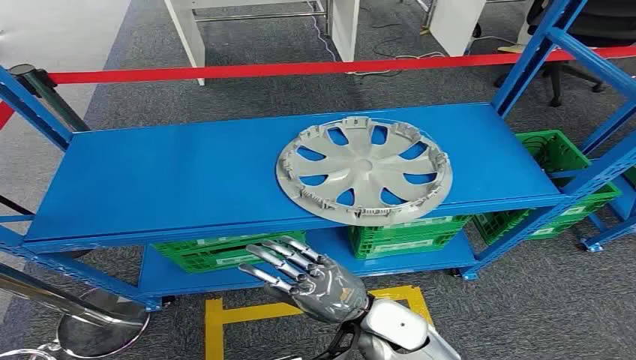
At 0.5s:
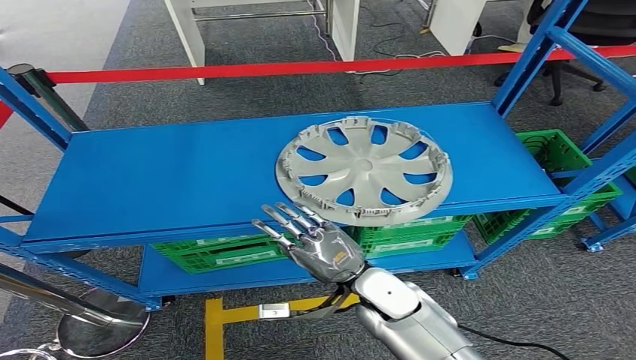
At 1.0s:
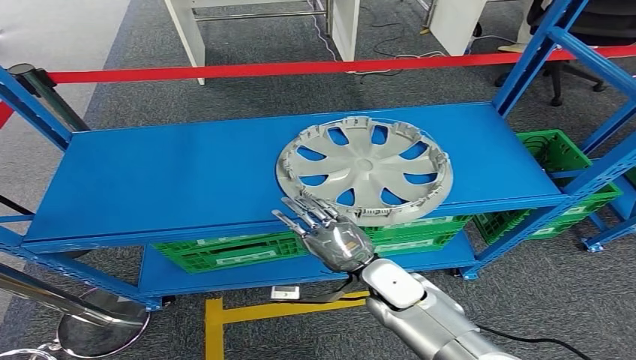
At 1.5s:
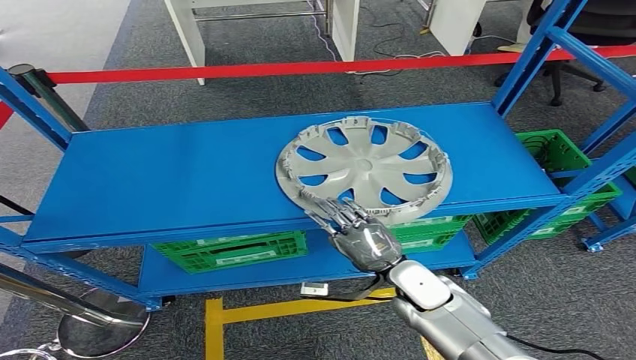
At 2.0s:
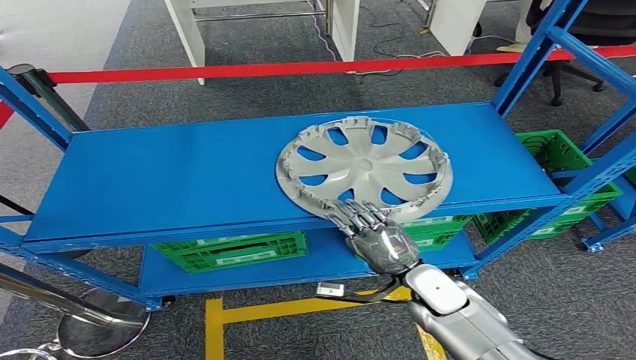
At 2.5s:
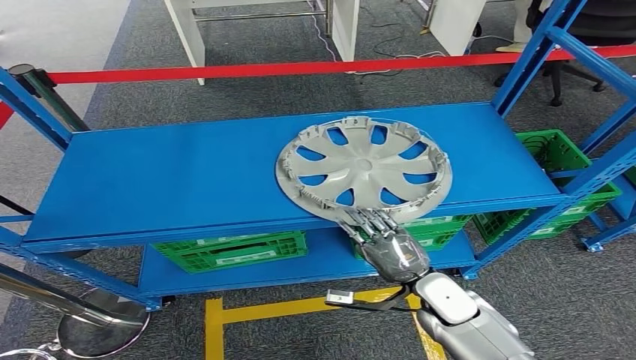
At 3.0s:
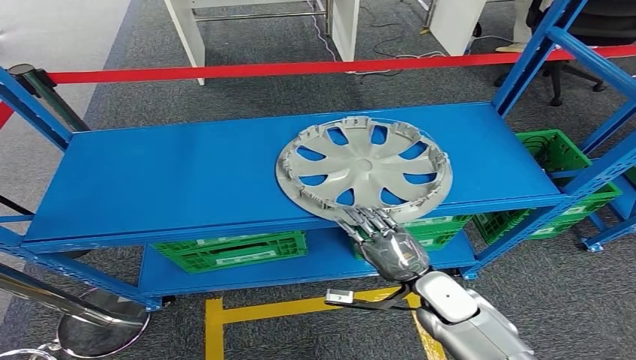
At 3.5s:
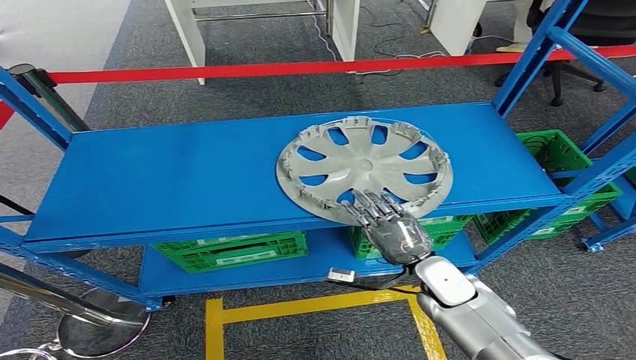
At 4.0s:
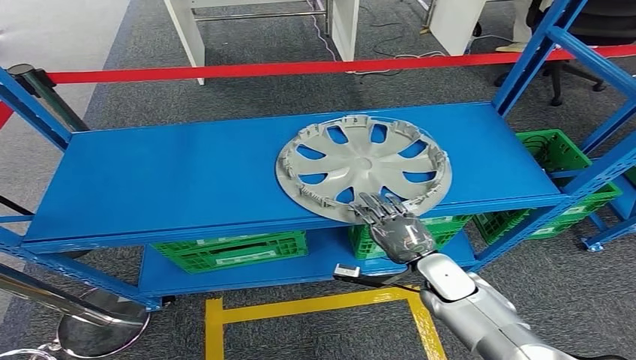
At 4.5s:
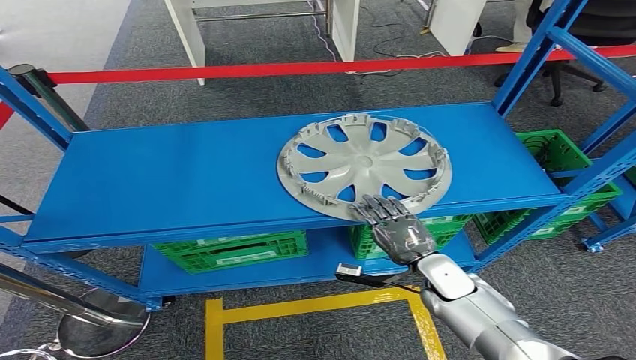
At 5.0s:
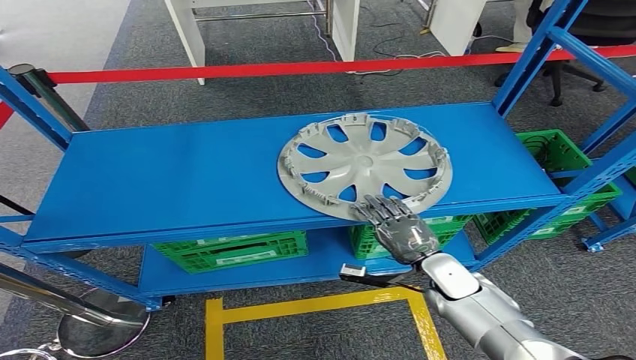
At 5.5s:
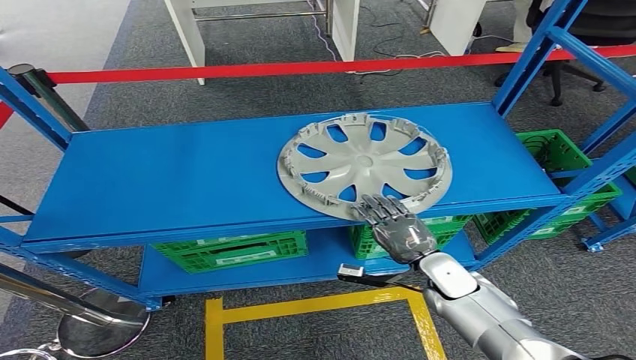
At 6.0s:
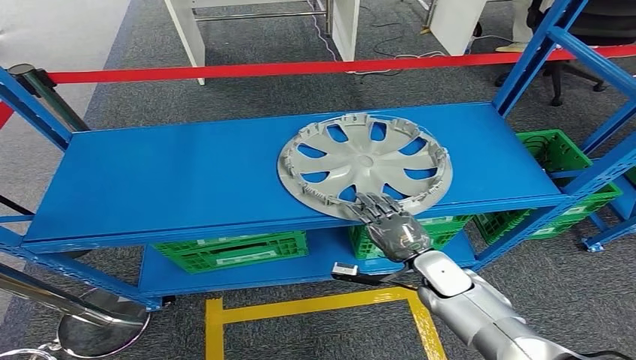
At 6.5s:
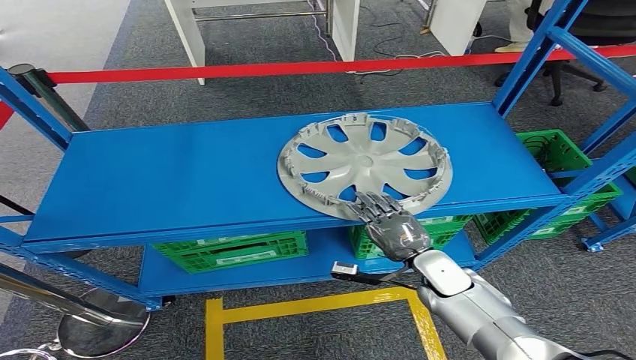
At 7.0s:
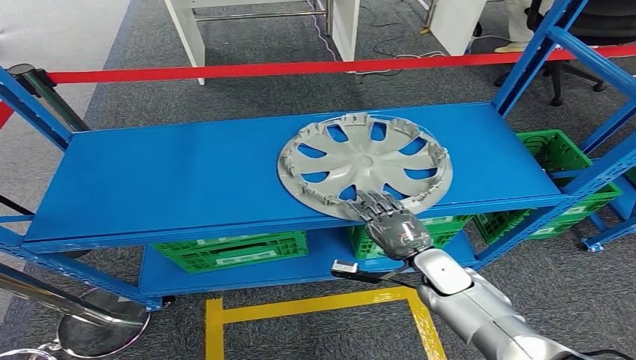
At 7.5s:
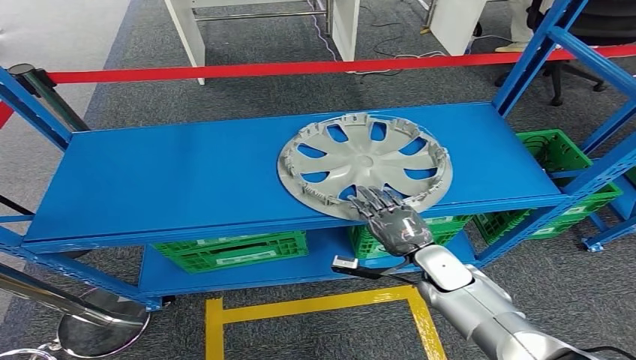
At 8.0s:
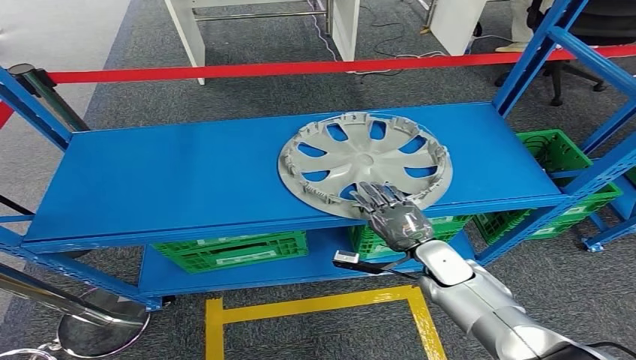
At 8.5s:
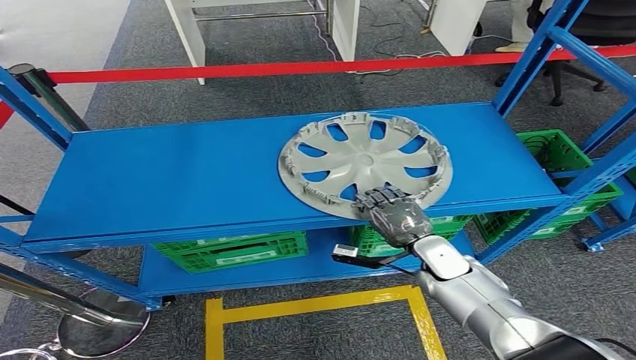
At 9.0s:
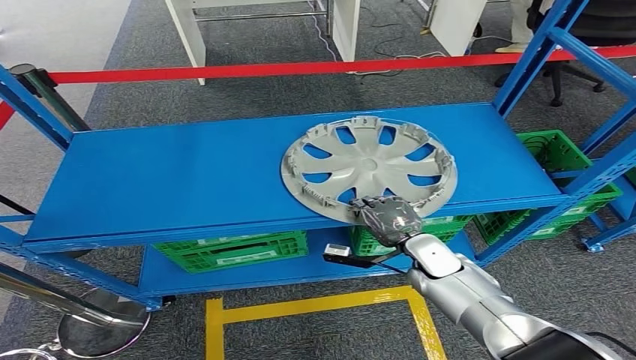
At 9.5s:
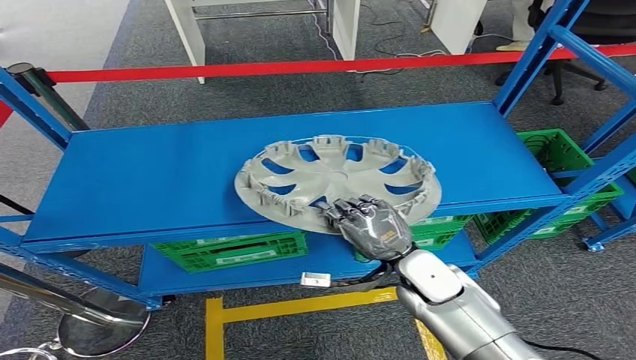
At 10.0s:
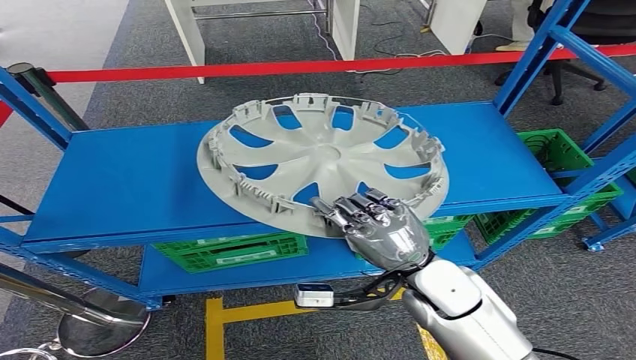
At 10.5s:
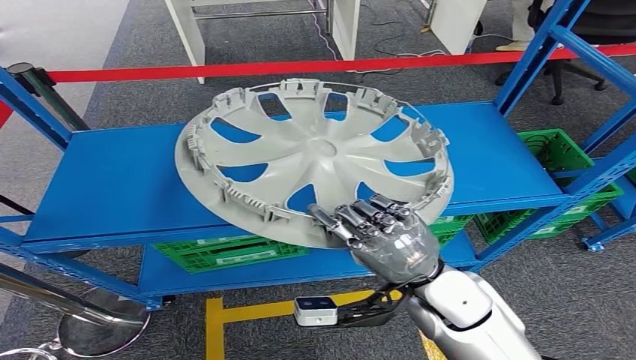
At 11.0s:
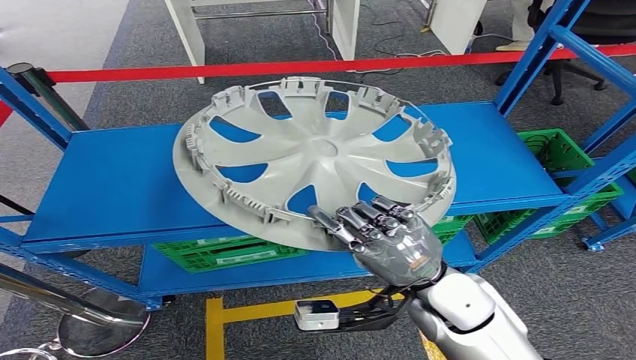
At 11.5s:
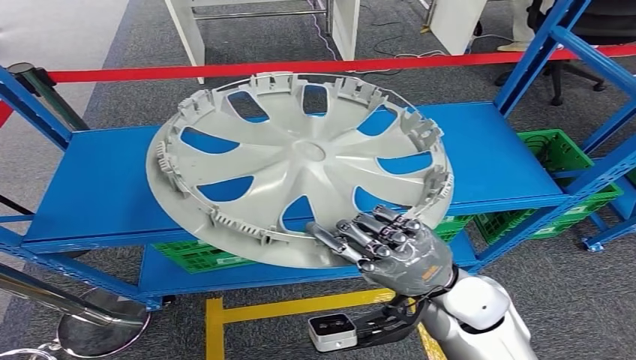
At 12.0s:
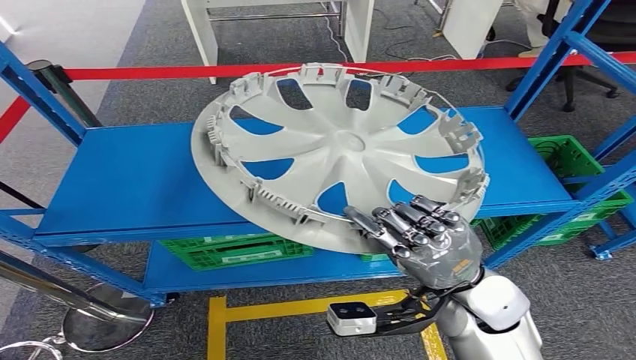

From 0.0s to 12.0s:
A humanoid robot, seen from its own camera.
From 2.0s to 8.0s: The hands stay close to where they were, moving slightly.
From 8.0s to 10.0s: The right hand goes some 15 cm upward, backward and to the left.

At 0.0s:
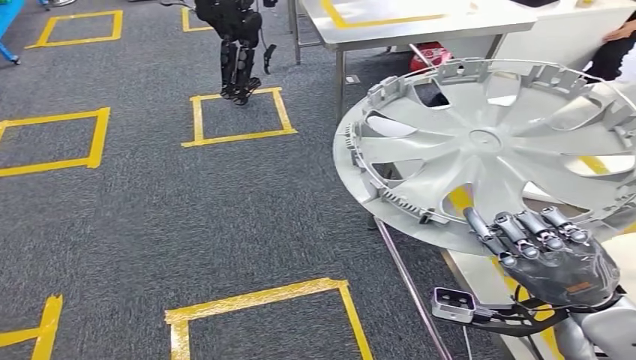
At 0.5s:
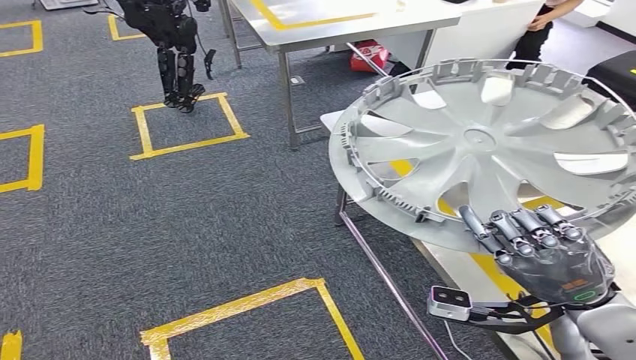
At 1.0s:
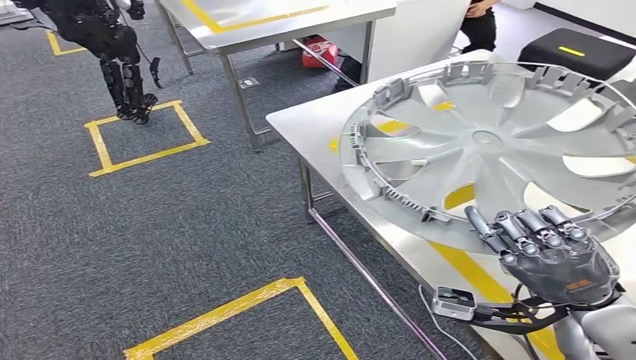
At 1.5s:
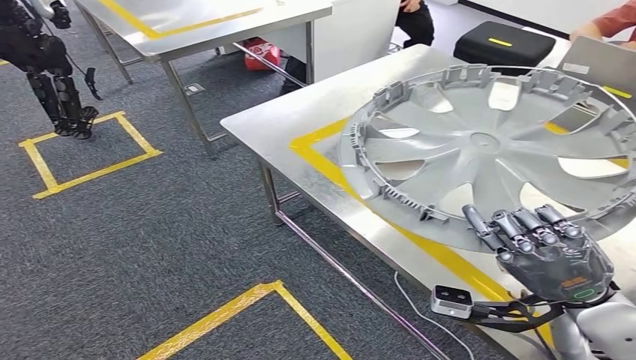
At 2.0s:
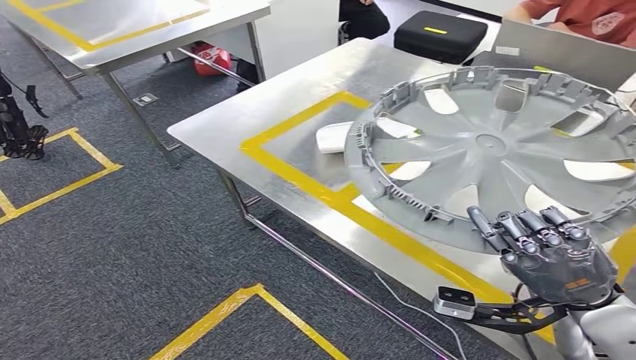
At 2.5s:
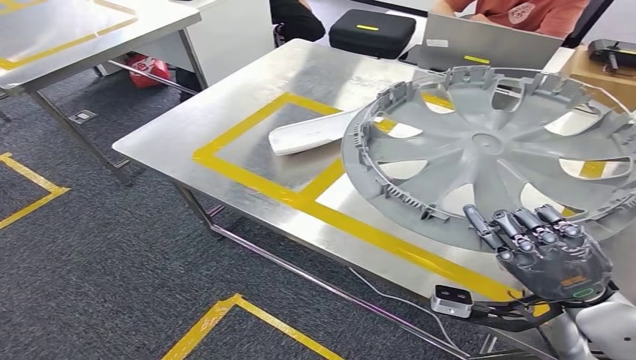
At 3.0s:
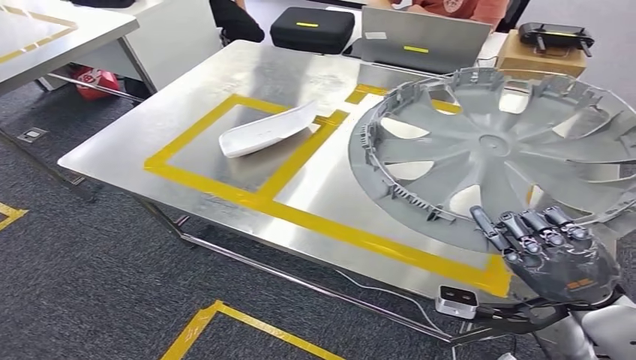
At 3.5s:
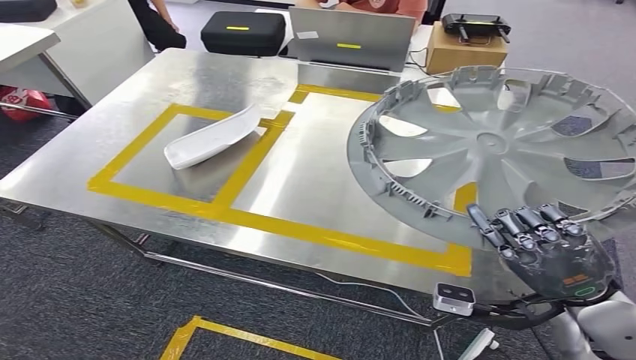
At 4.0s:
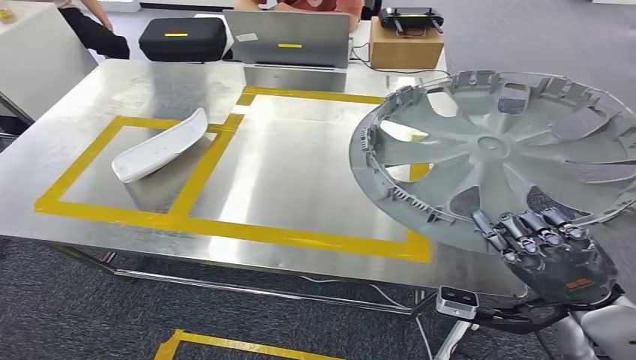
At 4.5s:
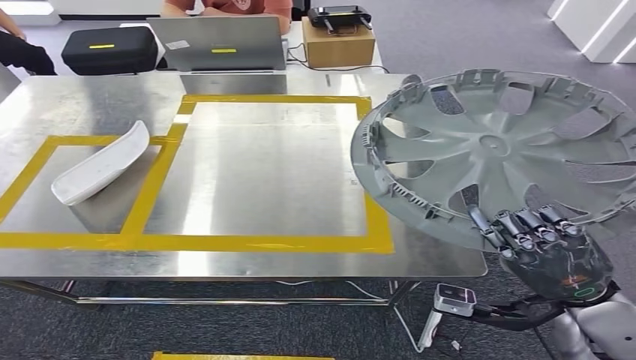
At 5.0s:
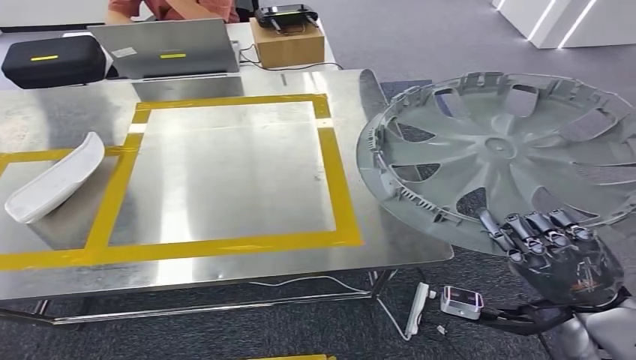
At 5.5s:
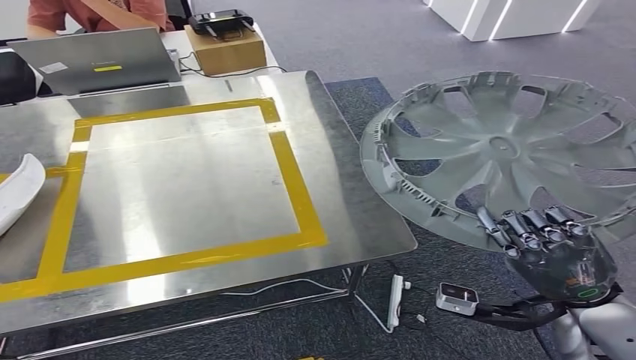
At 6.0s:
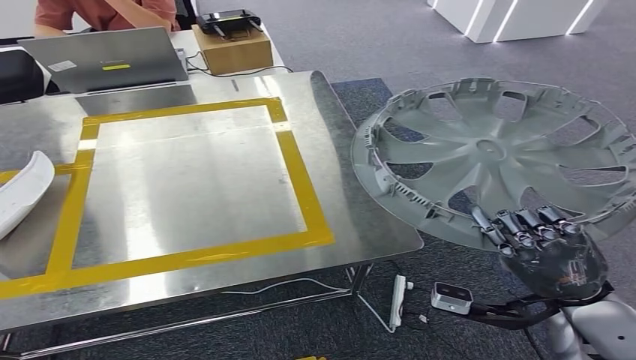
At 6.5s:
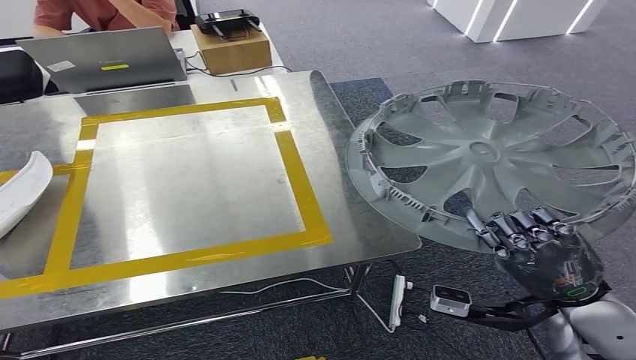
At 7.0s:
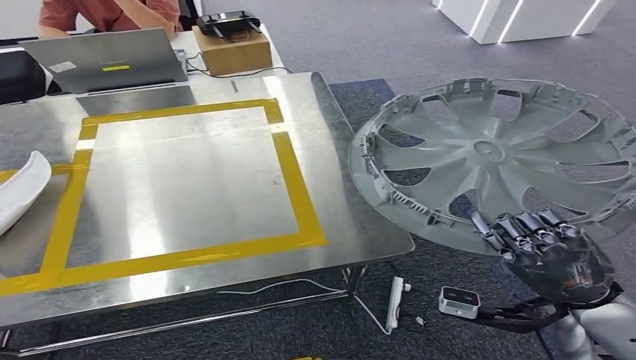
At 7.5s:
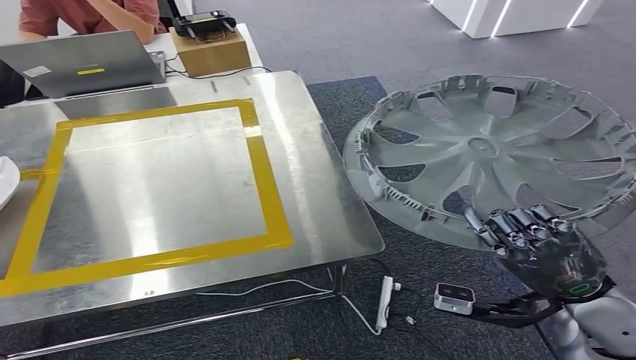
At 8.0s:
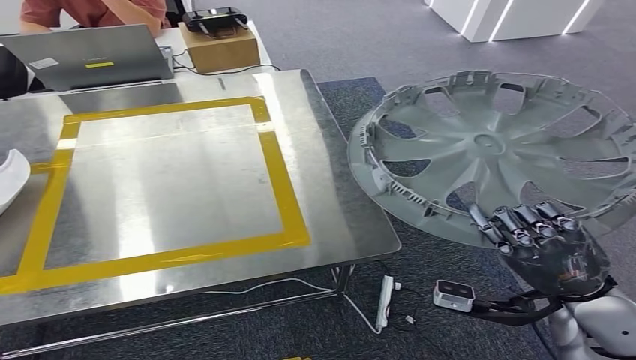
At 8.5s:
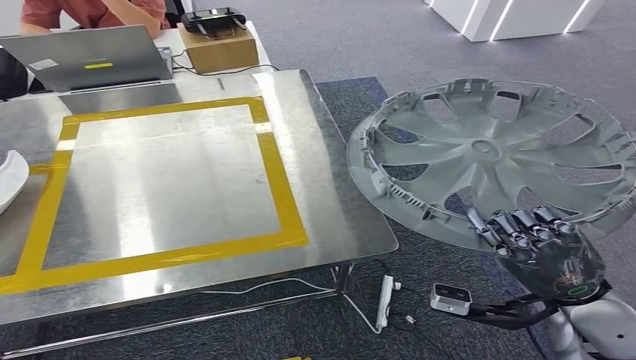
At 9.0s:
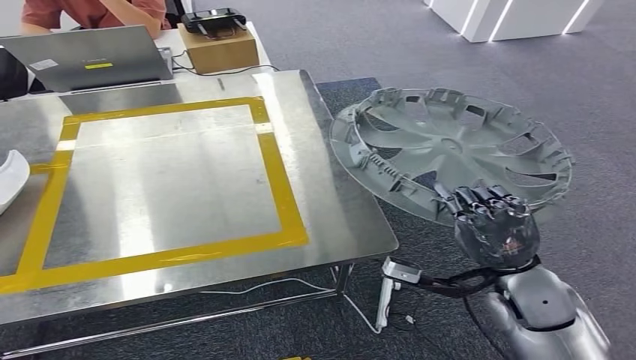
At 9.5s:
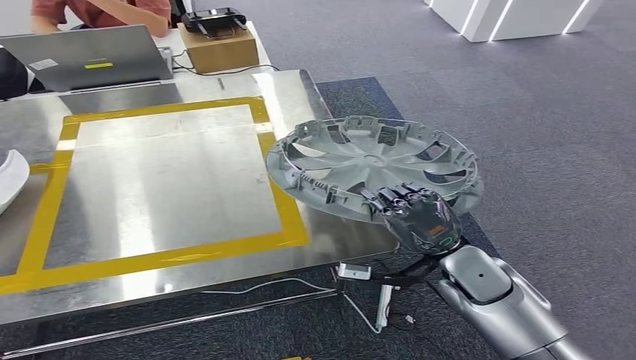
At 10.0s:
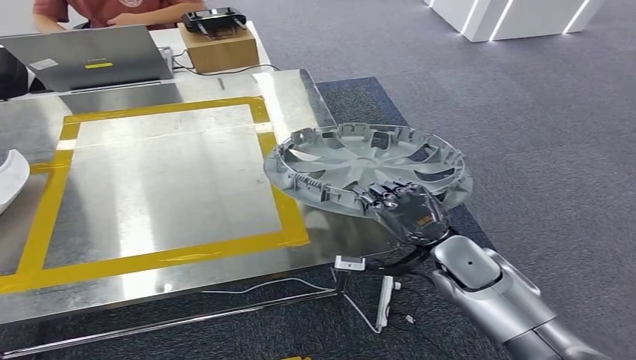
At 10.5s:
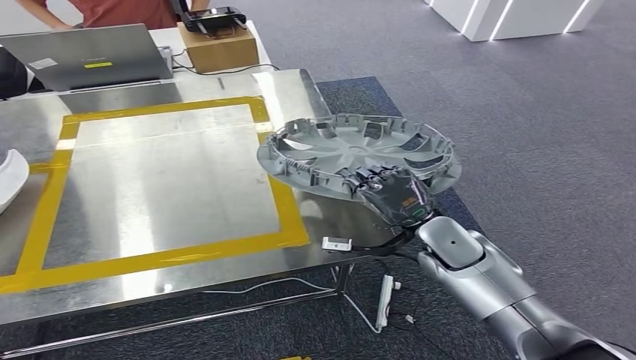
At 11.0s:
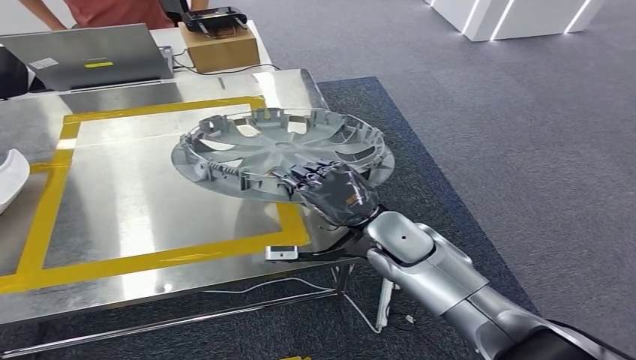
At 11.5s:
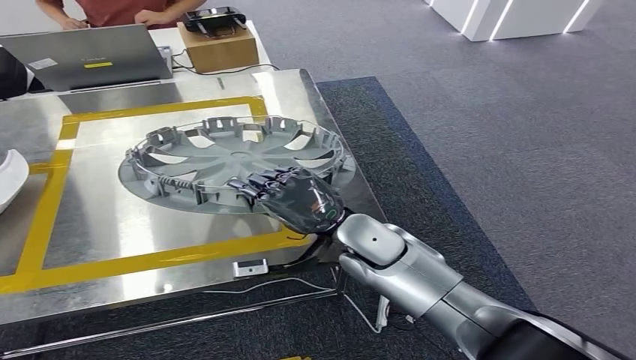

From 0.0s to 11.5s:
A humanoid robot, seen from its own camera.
Step, from 0.0s to 4.5s: Move the small parts to the workbench.
